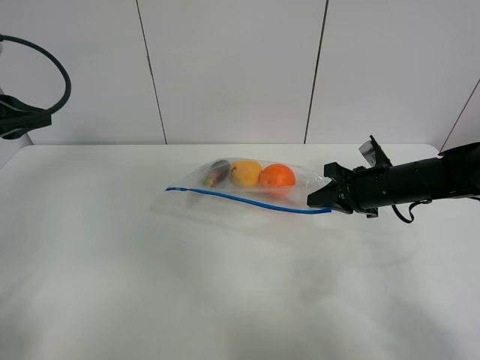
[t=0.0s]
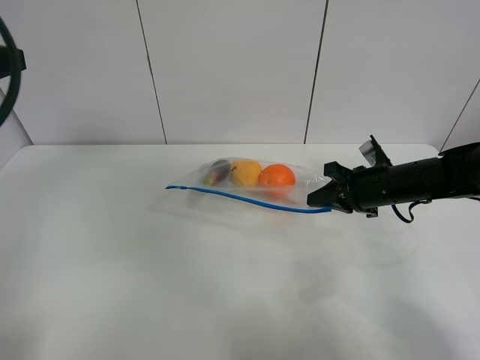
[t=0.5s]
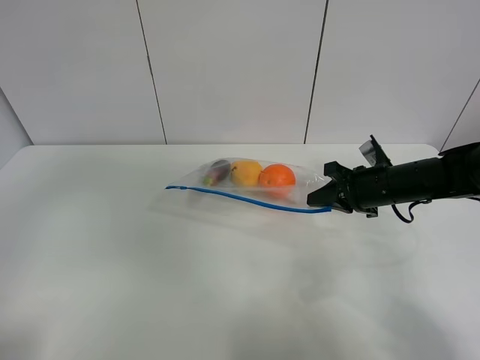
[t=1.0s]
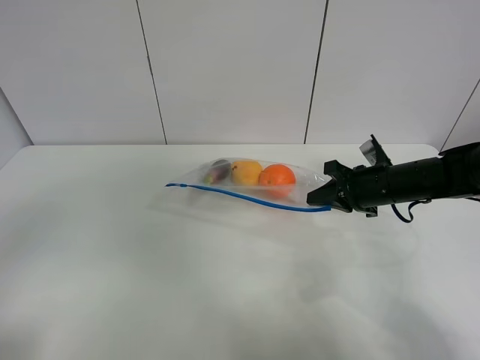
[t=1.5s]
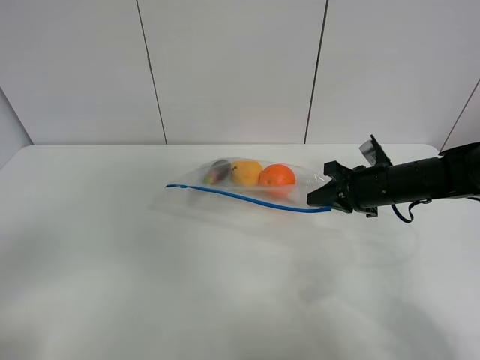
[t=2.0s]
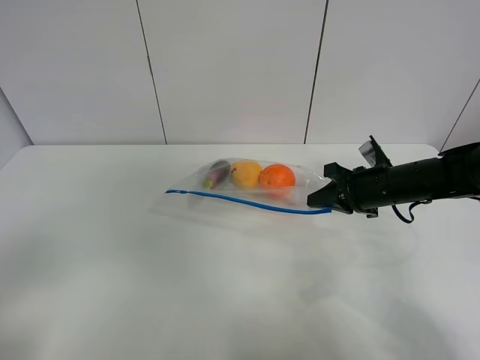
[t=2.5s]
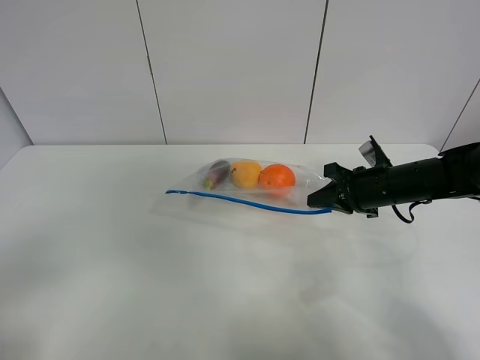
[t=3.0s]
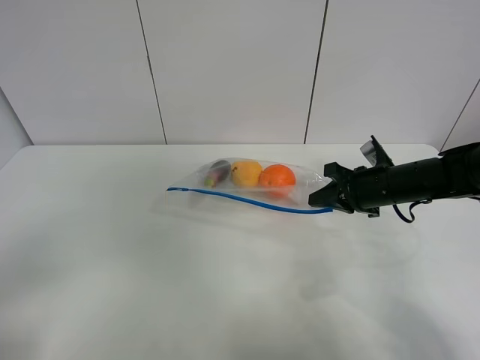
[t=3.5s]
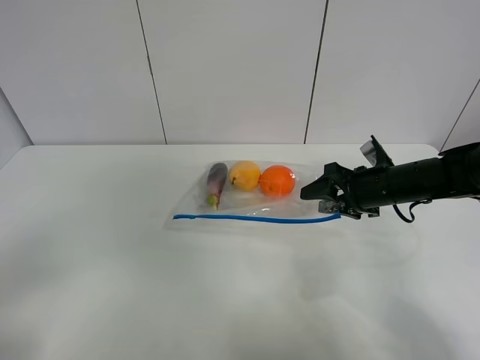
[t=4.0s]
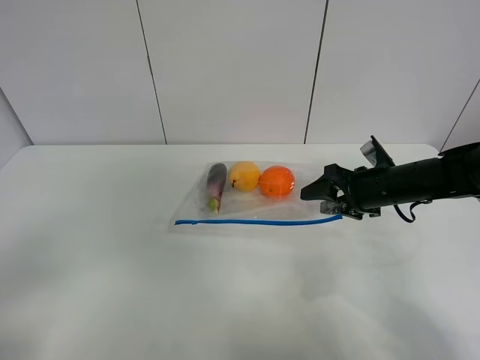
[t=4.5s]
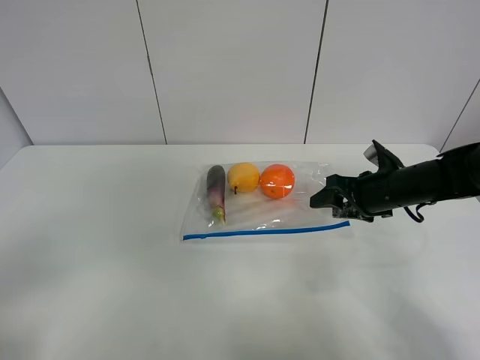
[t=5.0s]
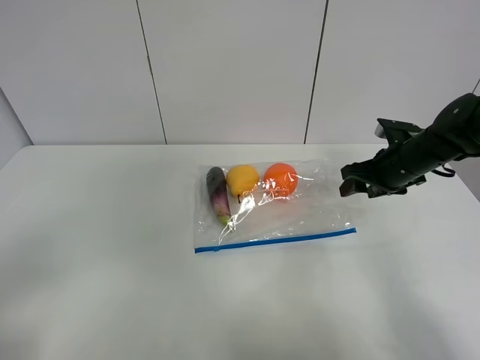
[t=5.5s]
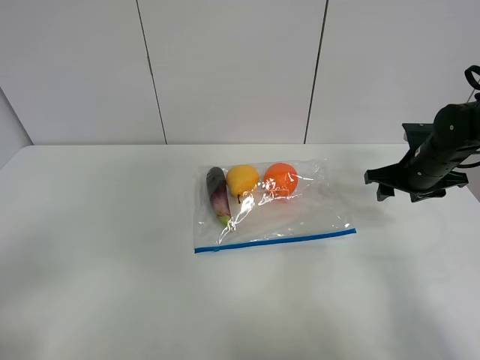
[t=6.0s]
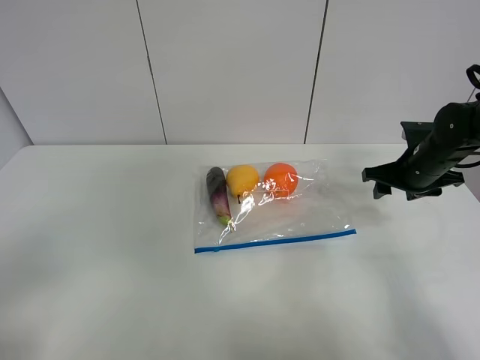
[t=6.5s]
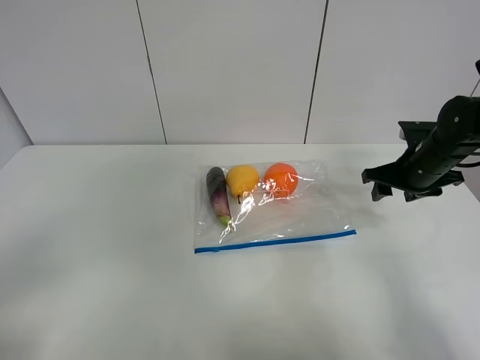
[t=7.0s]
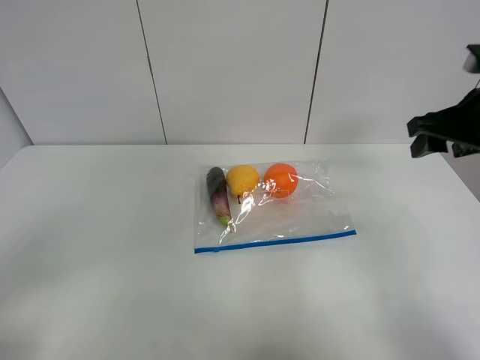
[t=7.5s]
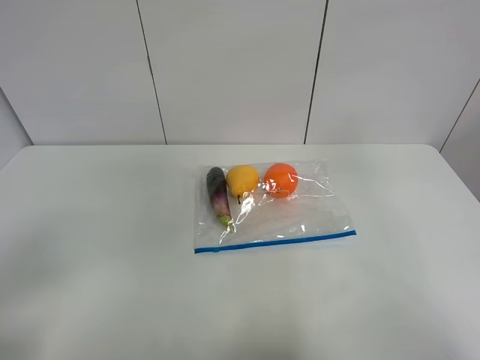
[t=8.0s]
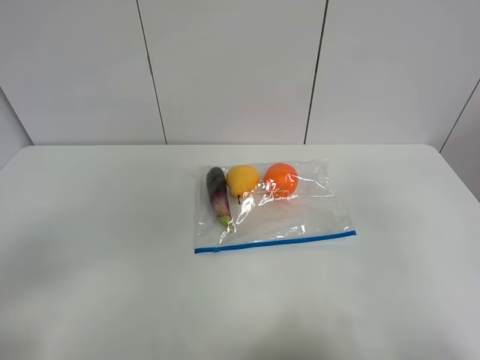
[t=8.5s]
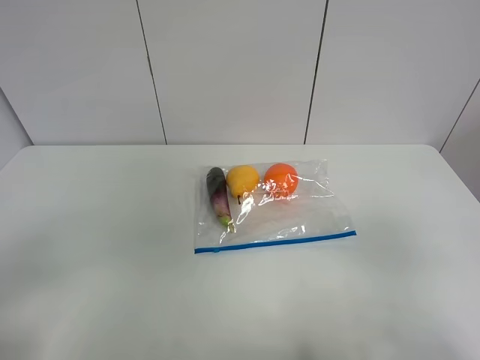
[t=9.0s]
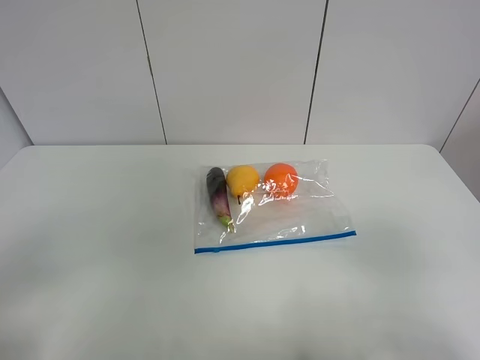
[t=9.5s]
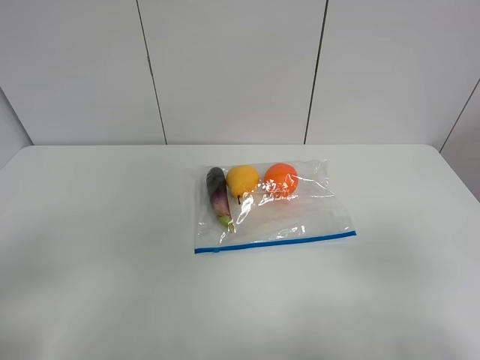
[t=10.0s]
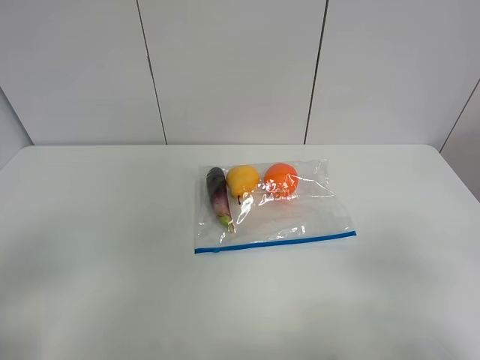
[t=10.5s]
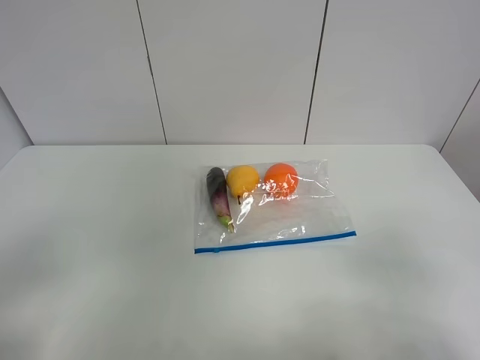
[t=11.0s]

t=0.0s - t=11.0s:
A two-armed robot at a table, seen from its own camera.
t=0.0s - t=2.0s: The left gripper heads backward, covering approximately 30 cm.
t=2.0s - t=3.5s: The grippers make only small movements.
t=3.5s - t=5.5s: The right gripper ends up about 5 cm from where it was, and opens.
t=5.5s - t=7.5s: The right gripper travels upward and backward by about 15 cm.
t=7.5s - t=9.0s: The right gripper heads backward, covering roughly 30 cm.

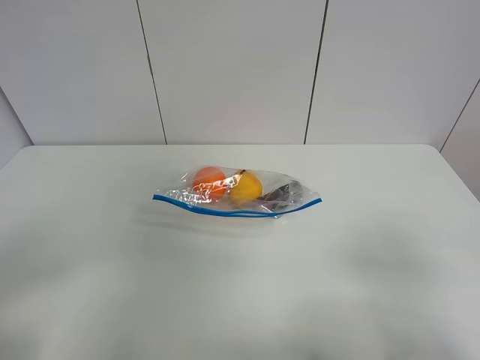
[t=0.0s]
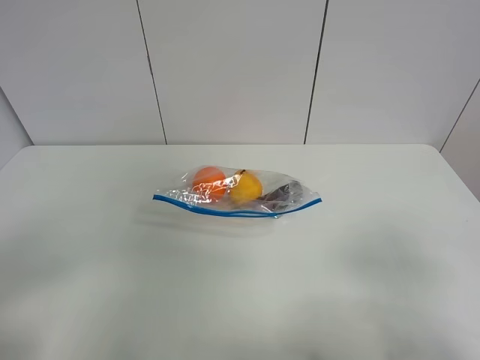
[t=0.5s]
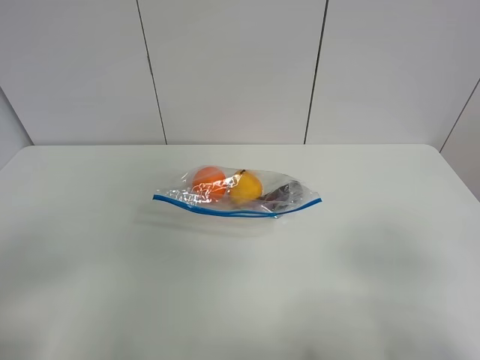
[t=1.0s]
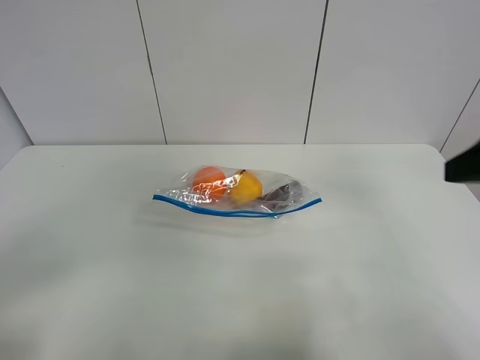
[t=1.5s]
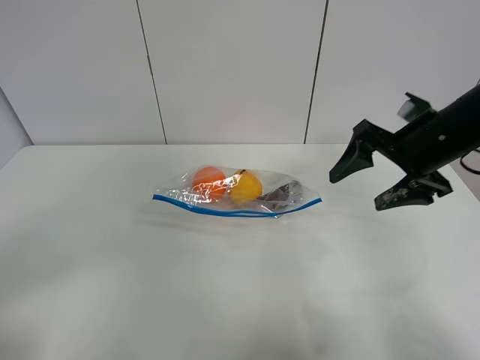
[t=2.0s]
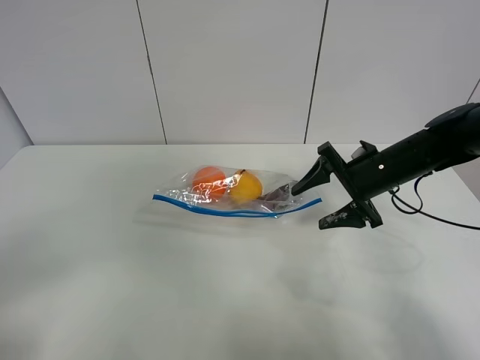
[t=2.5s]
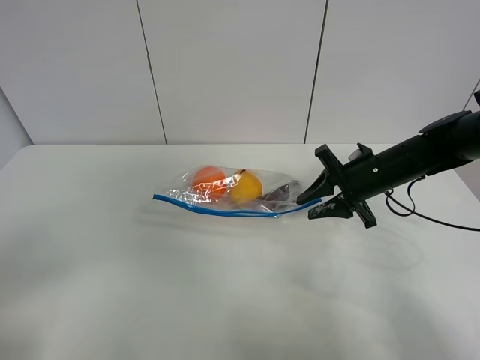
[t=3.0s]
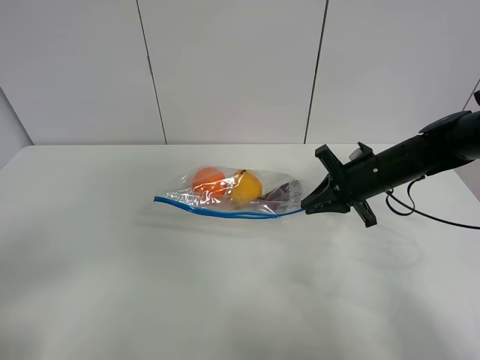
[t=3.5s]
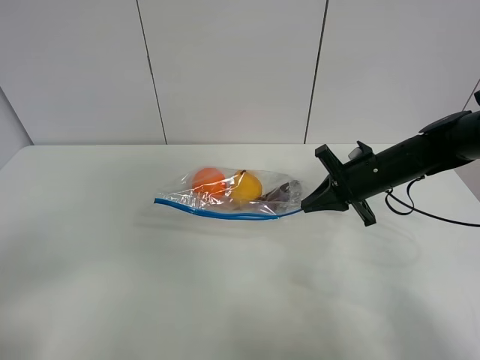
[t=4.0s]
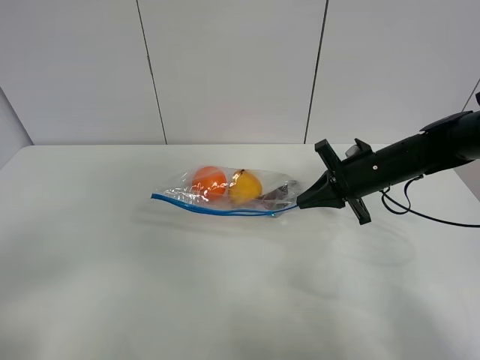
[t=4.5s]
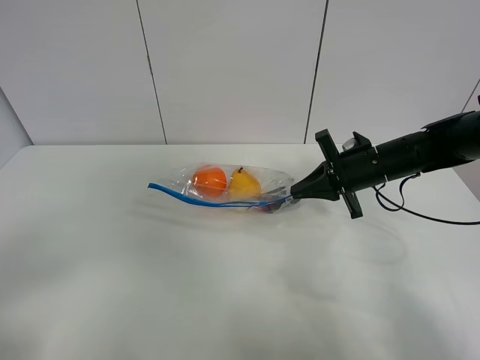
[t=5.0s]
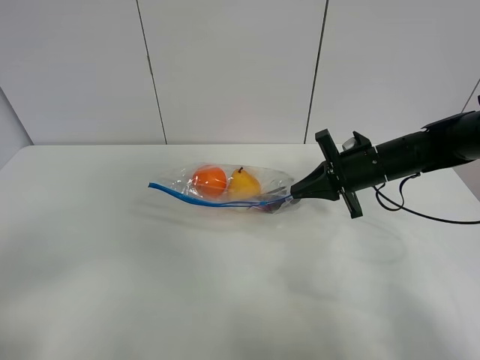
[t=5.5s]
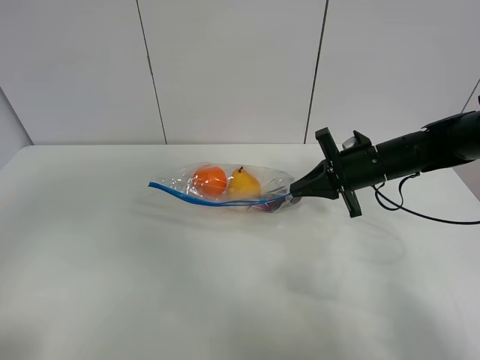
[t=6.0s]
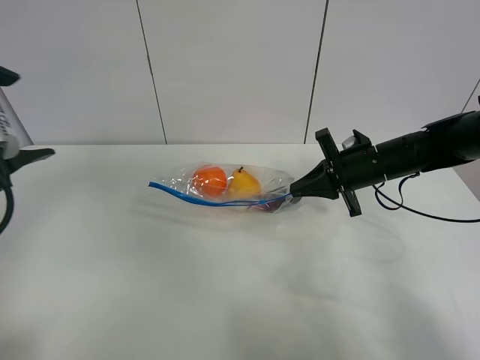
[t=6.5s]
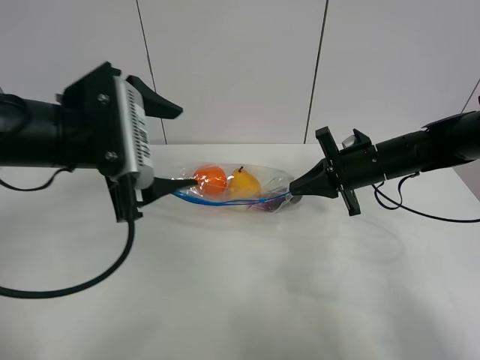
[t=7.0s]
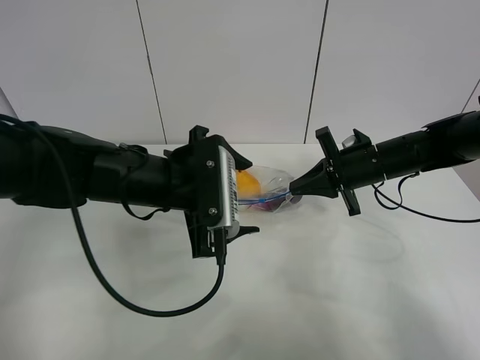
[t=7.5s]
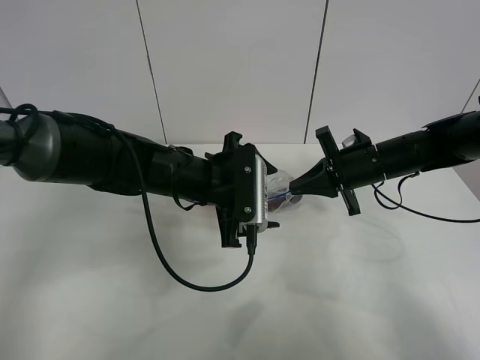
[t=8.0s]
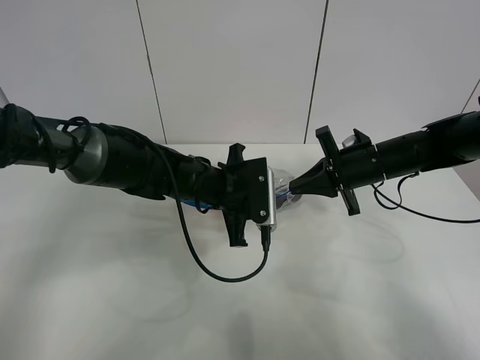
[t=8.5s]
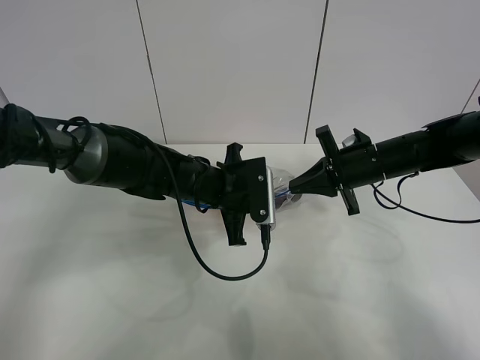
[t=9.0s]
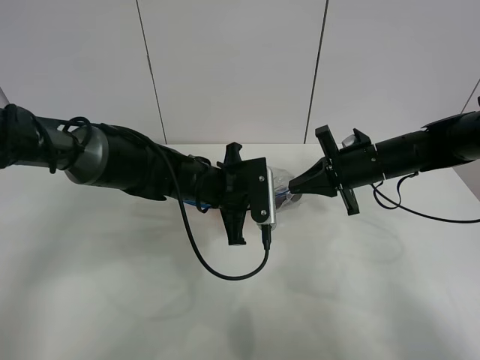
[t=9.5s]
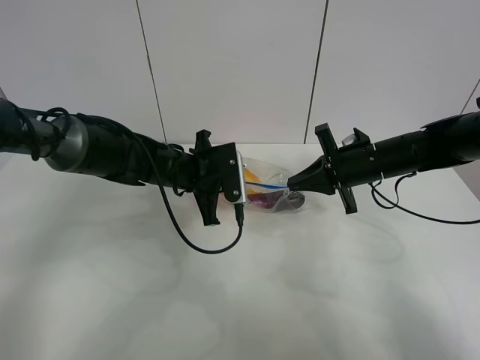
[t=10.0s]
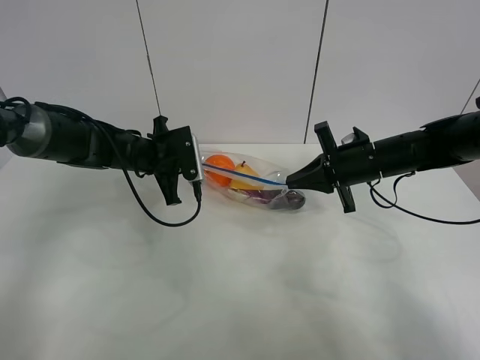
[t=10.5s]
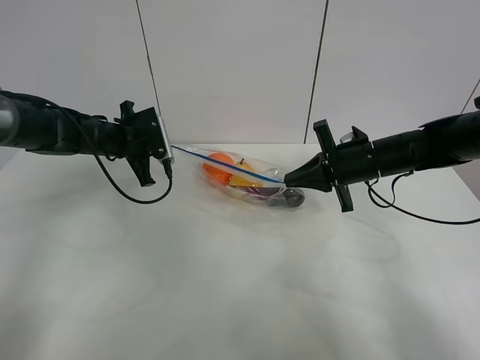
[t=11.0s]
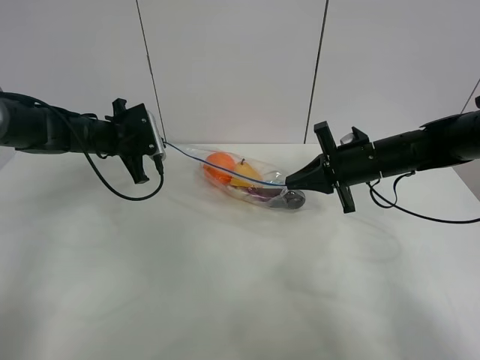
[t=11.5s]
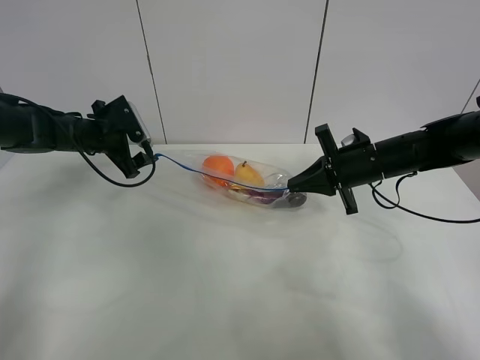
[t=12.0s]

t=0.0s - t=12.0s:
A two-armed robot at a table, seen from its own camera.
Step, t=0.0s - t=3.5s: Grasp the fruit bag with right gripper.
Step, t=4.0s - t=5.0s: Lift the fruit bag with your right gripper.
Step, t=5.5s - t=11.5s: Pull the fruit bag with left gripper.
t=0.0s - t=2.0s: The right gripper moves forward, about 30 cm.
t=2.0s - t=4.0s: The right gripper travels downward and forward by approximately 10 cm, and closes up.
t=4.0s - t=6.0s: The left gripper heads forward and upward, covering approximately 10 cm.
t=6.0s - t=8.0s: The left gripper travels to the right, forward and downward by about 40 cm.
t=8.0s - t=10.0s: The left gripper travels forward by some 5 cm, and closes its fingers.
t=10.0s - t=12.0s: The left gripper goes approximately 20 cm to the left, and opens.

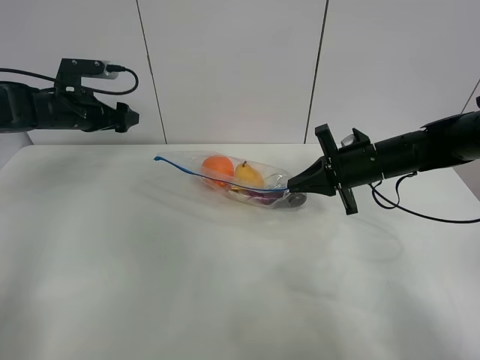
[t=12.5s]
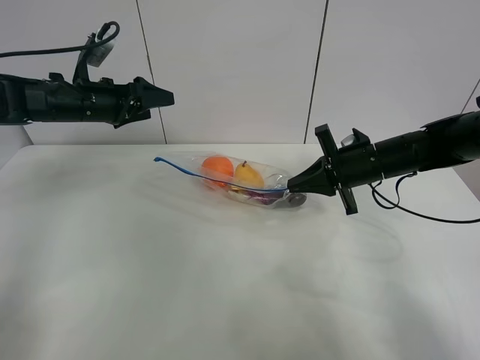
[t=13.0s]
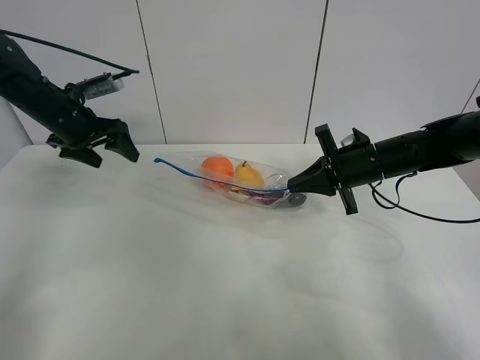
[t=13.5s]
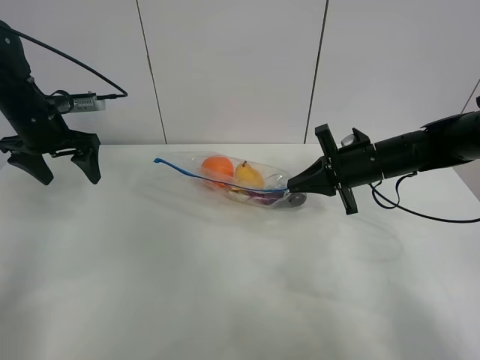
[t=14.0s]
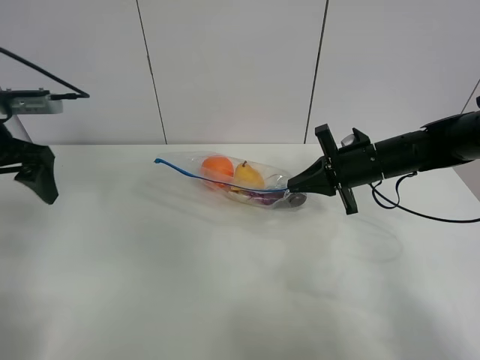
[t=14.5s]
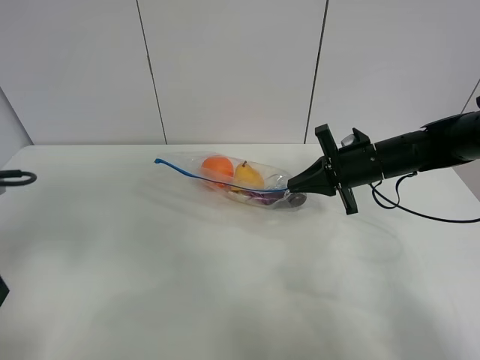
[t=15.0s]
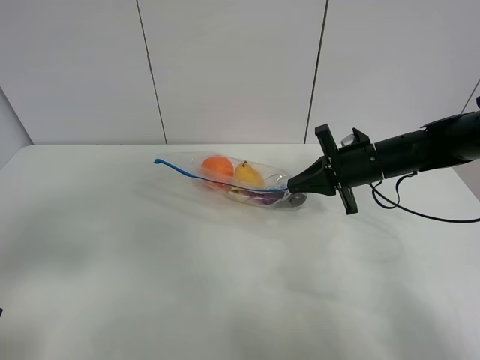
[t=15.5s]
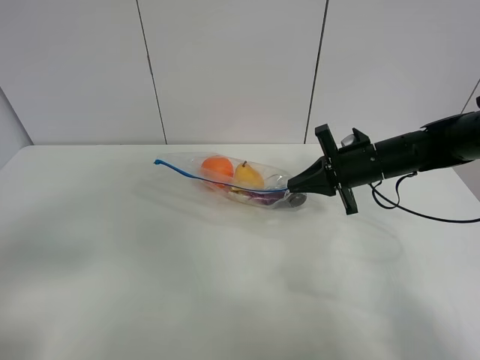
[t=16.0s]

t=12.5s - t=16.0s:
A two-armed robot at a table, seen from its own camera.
t=12.5s - t=14.5s: The left gripper travels backward and upward by about 20 cm.
t=14.5s - t=16.0s: The left gripper is displaced backward by approximately 25 cm.
